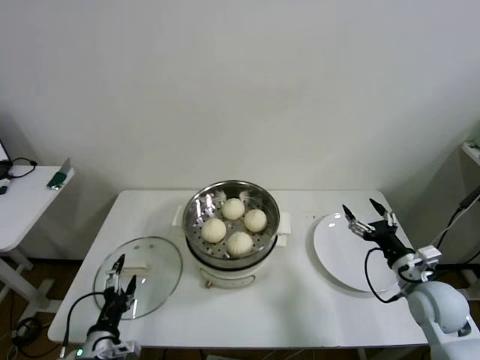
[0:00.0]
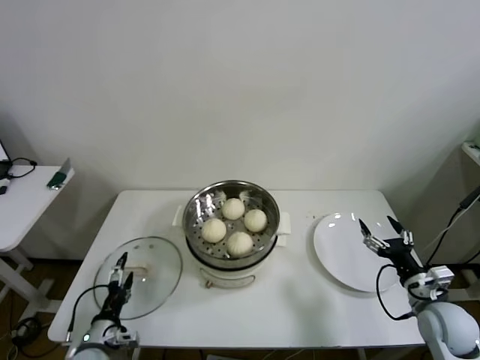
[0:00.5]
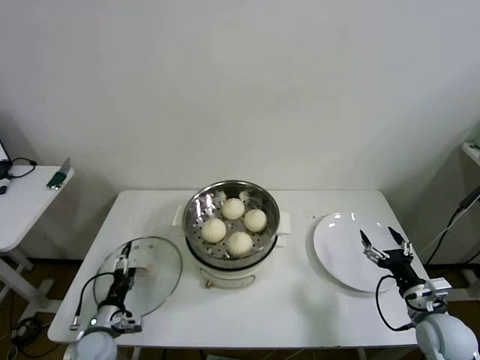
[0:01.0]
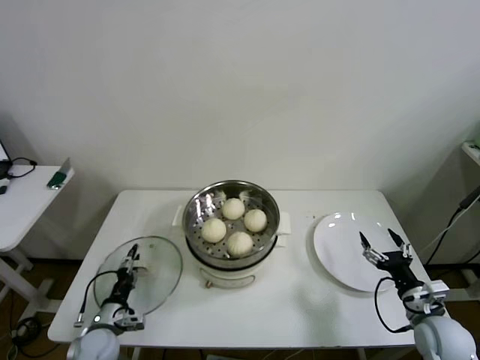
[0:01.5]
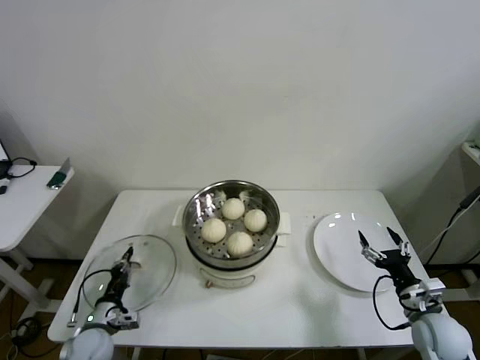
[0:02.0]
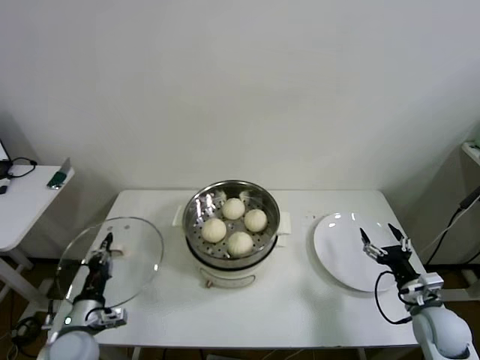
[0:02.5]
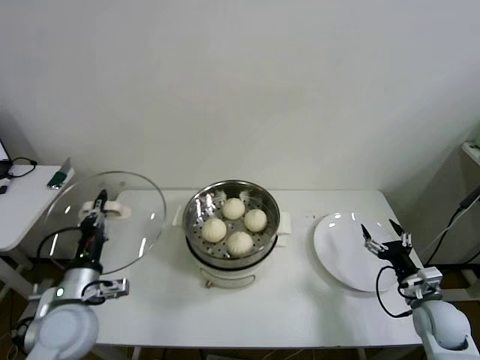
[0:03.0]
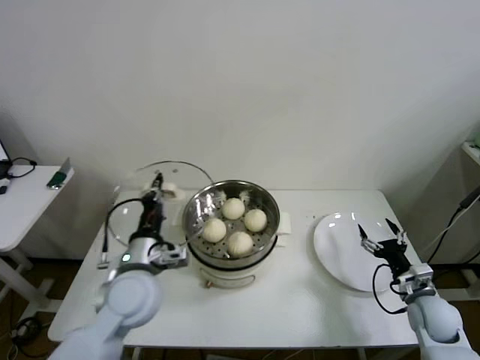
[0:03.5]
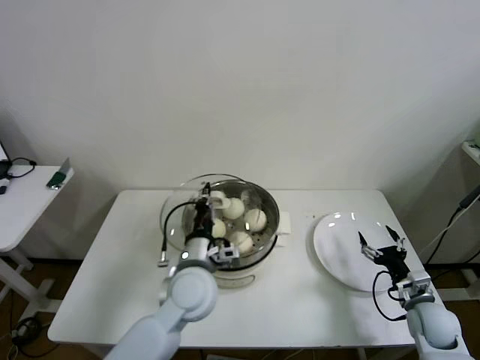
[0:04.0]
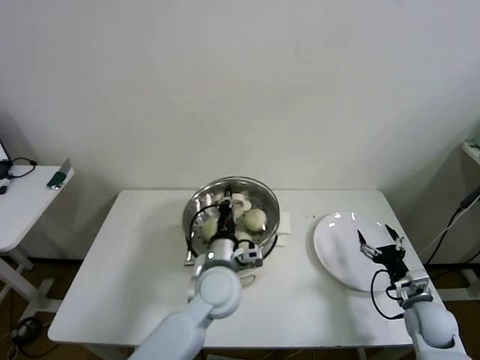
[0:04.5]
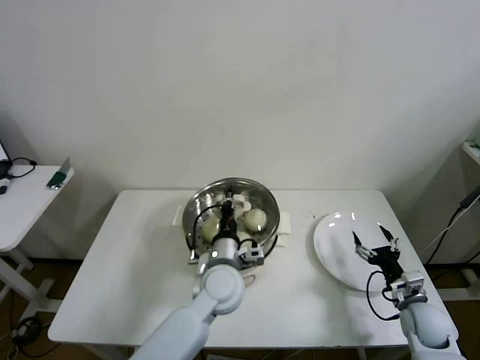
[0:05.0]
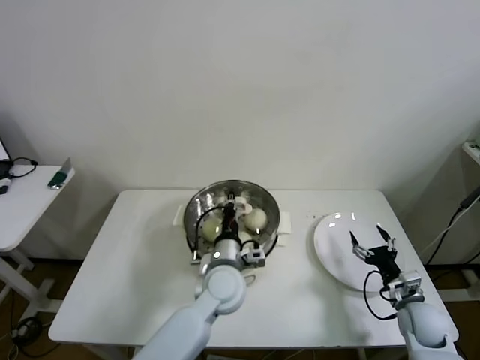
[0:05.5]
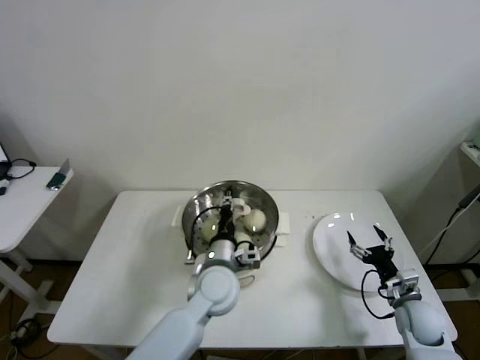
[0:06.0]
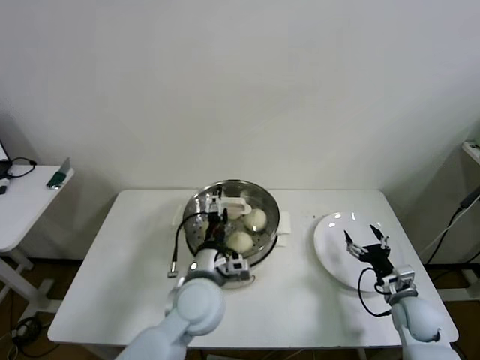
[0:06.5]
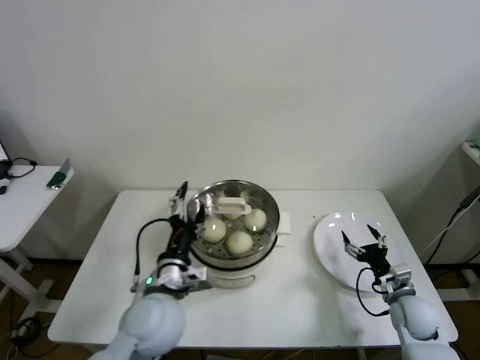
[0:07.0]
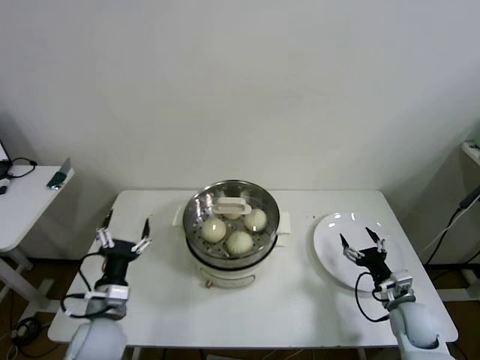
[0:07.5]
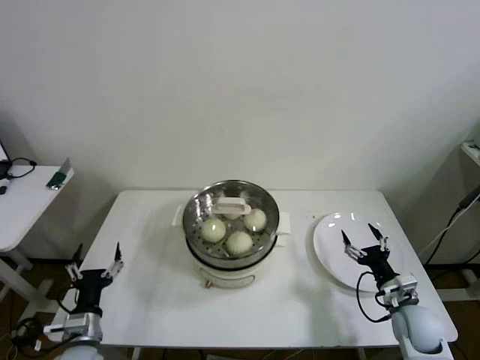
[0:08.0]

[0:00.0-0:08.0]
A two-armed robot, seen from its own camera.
Step, 0:02.0 to 0:05.5: Place the pot lid on the steamer with left gripper.
0:00.0 to 0:02.0: The left gripper shifts roughly 10 cm forward and downward, and closes up. The right gripper heads downward, covering about 5 cm.
0:02.0 to 0:04.0: The left gripper is displaced to the right and upward by some 30 cm, while the right gripper changes place by about 5 cm.
0:04.0 to 0:06.0: The left gripper moves to the right and downward, approximately 10 cm.
0:06.0 to 0:08.0: The left gripper goes some 30 cm to the left and backward, and opens.

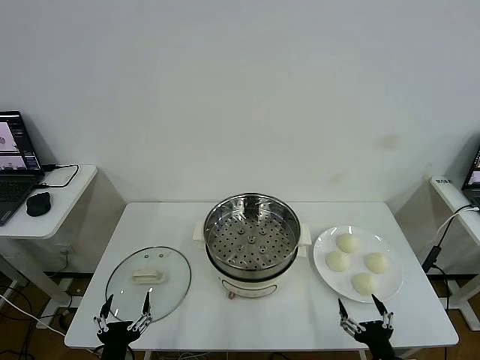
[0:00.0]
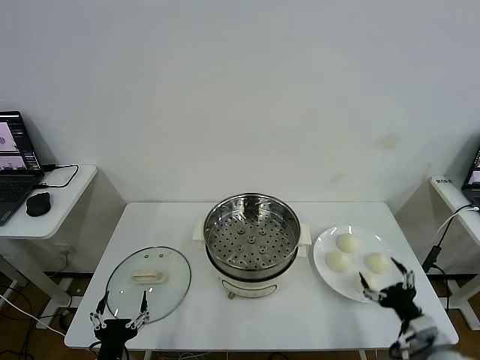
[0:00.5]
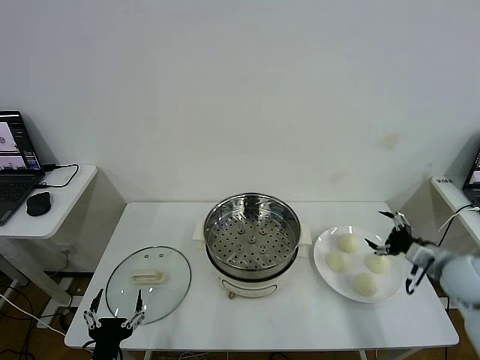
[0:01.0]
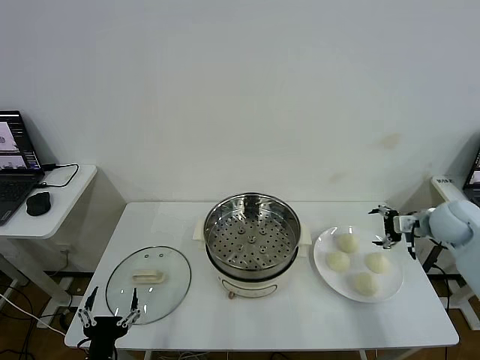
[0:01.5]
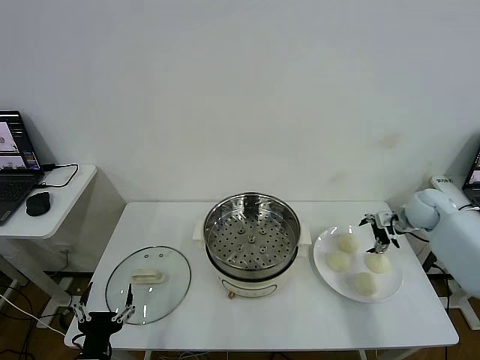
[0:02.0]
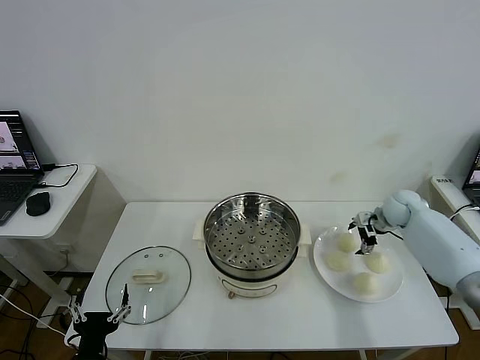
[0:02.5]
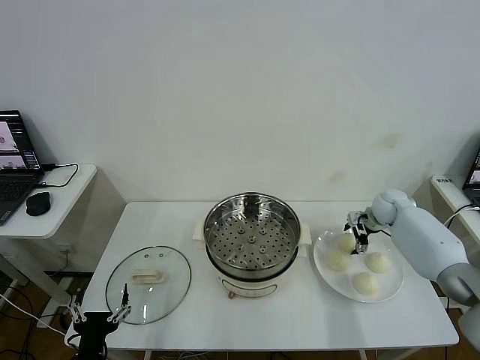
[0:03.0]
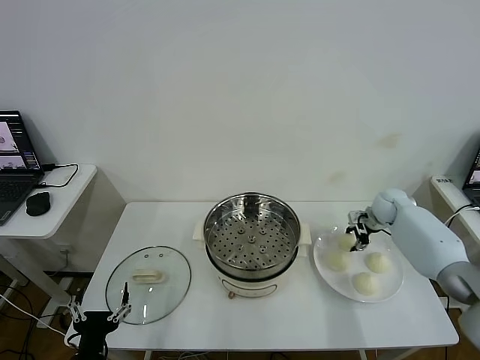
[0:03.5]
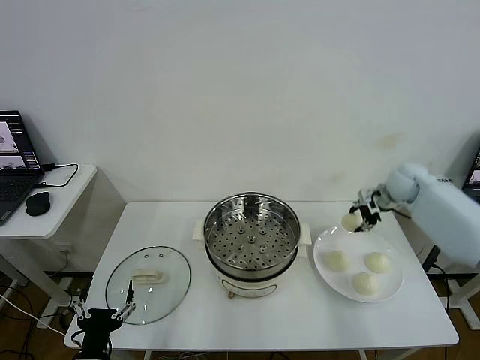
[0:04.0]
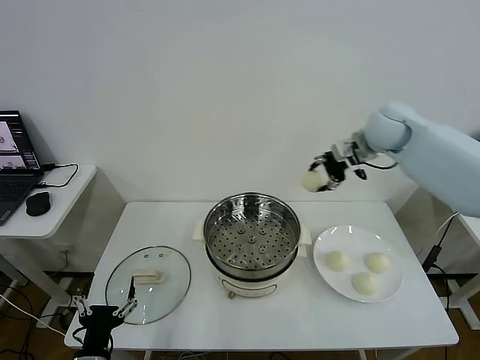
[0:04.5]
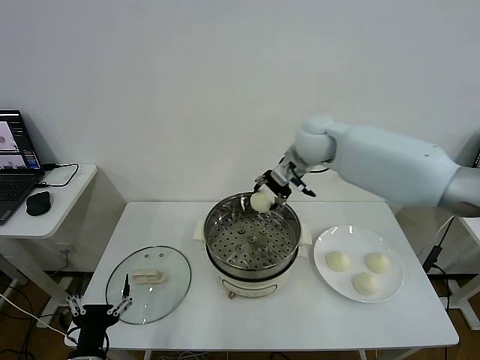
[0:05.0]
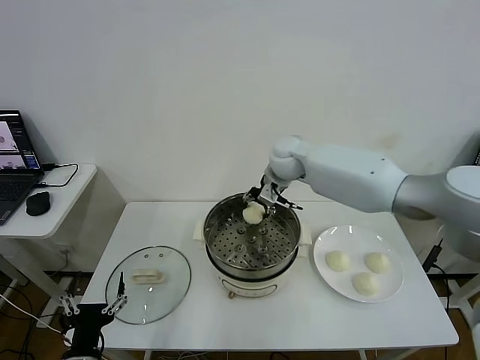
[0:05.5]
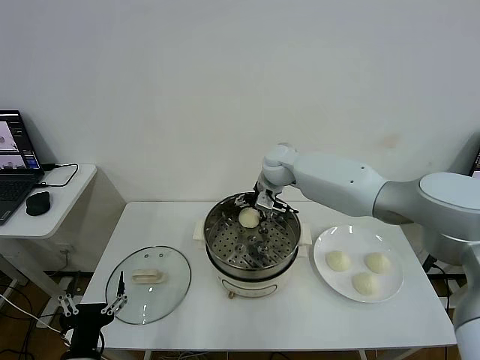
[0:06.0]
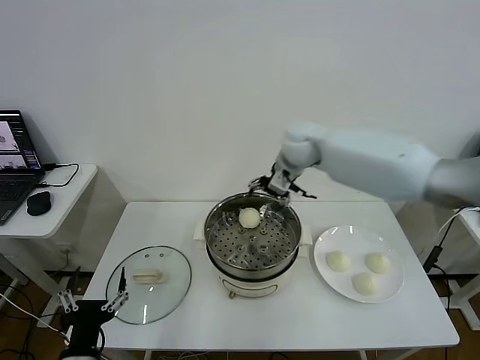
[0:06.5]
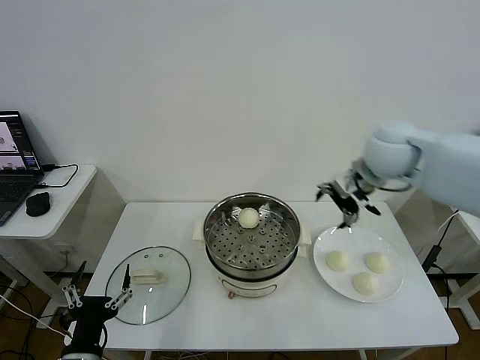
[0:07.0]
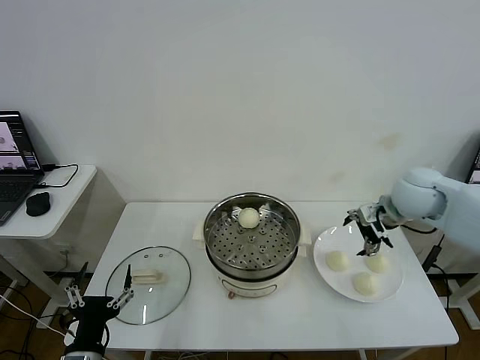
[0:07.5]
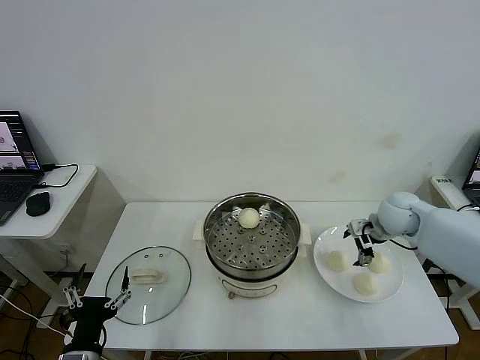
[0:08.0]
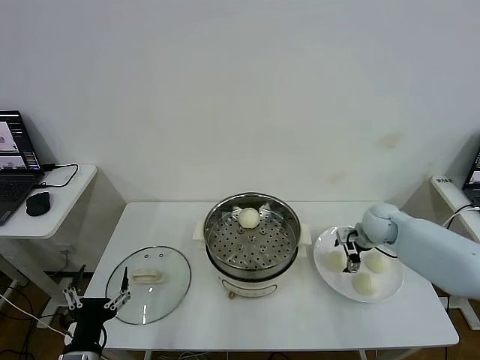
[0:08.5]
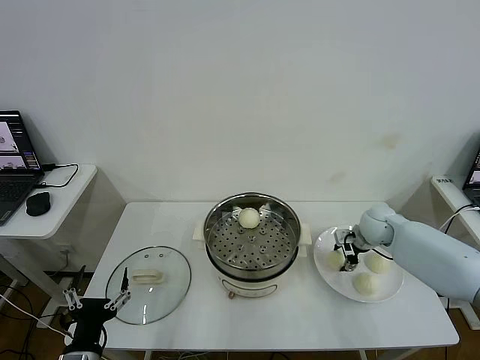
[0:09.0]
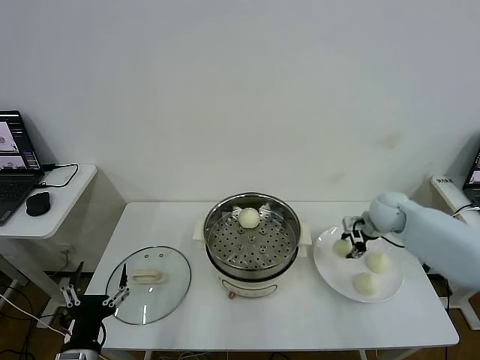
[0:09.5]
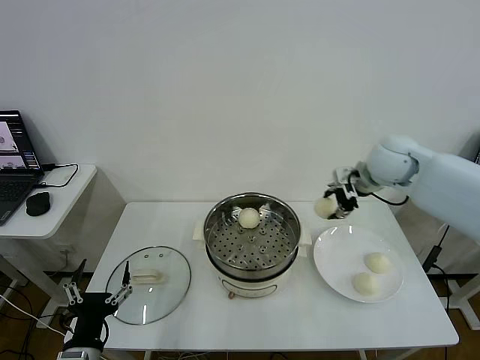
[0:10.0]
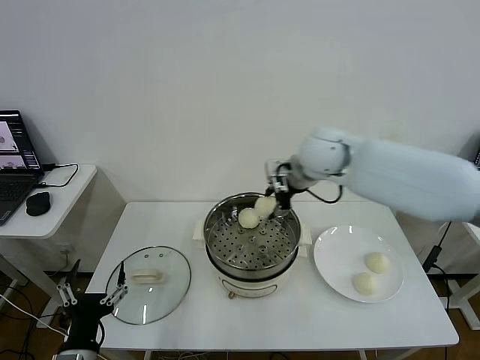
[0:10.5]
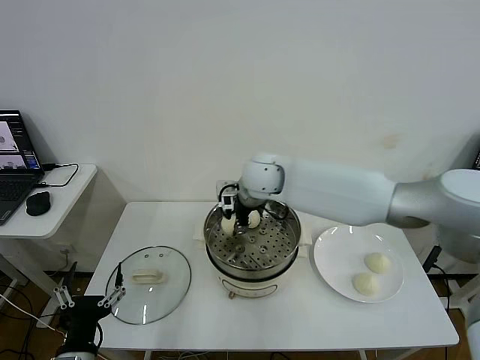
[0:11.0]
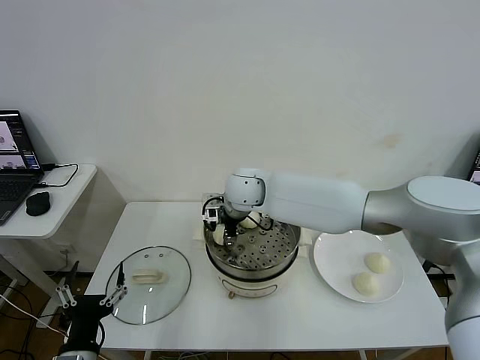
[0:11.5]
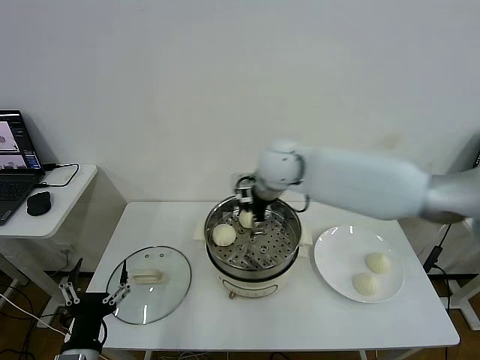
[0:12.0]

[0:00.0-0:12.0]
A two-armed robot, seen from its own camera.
Step, 0:00.0 to 0:03.0: Grasp the baozi in the plate with right gripper.
Step, 0:03.5 to 0:06.0: Place the baozi on the steamer with right gripper.
Step, 0:06.5 to 0:08.5: Grasp the baozi in the plate with right gripper.
Step, 0:09.0 to 0:11.5: Place the baozi on the steamer with right gripper.
0:02.0 to 0:04.0: The right gripper shifts some 15 cm upward and to the left, and closes up.
0:04.0 to 0:06.0: The right gripper goes approximately 30 cm to the left, and opens.
0:06.0 to 0:08.0: The right gripper goes about 25 cm to the right.
0:08.0 to 0:10.0: The right gripper travels upward and to the left by approximately 20 cm, and closes up.
0:10.0 to 0:12.0: The right gripper moves to the left, approximately 15 cm, and opens its fingers.

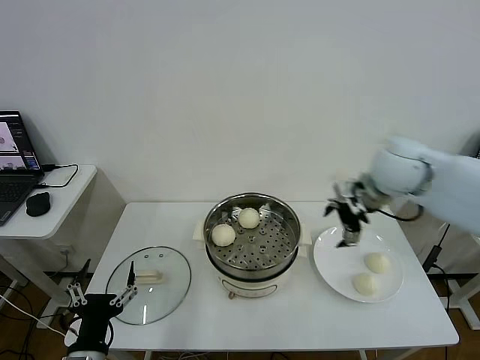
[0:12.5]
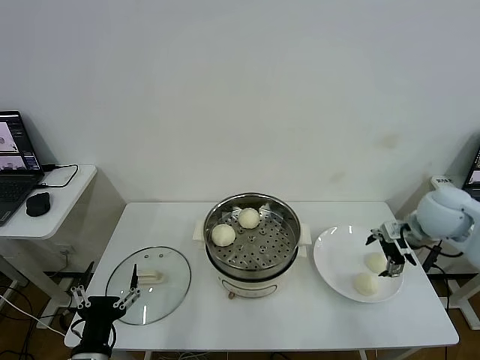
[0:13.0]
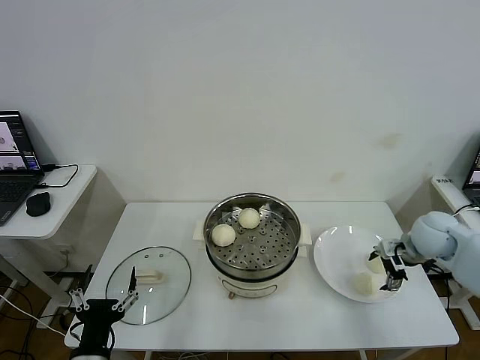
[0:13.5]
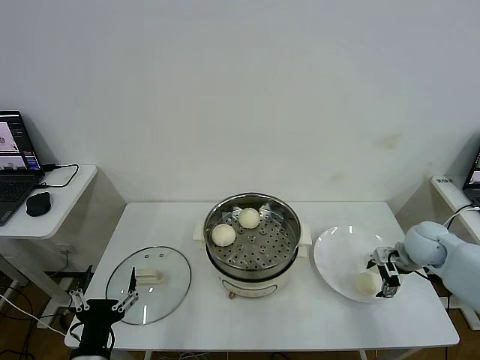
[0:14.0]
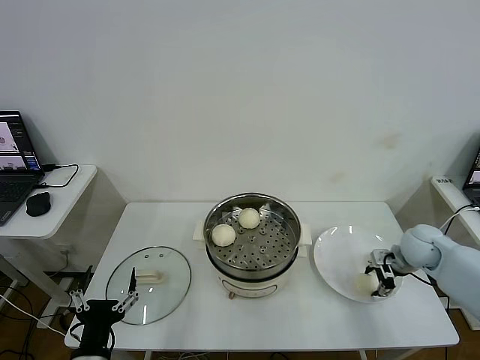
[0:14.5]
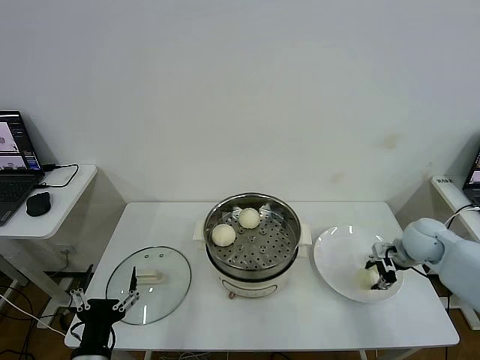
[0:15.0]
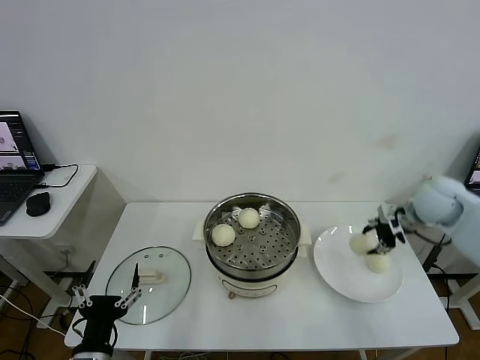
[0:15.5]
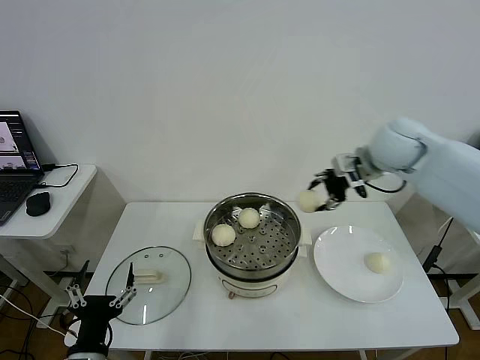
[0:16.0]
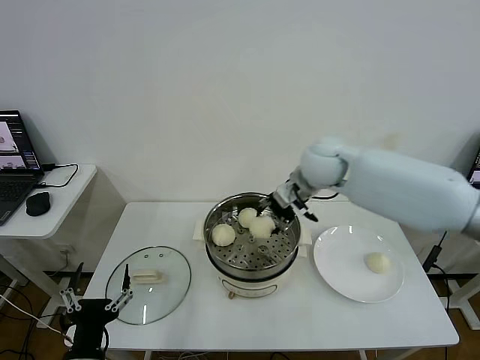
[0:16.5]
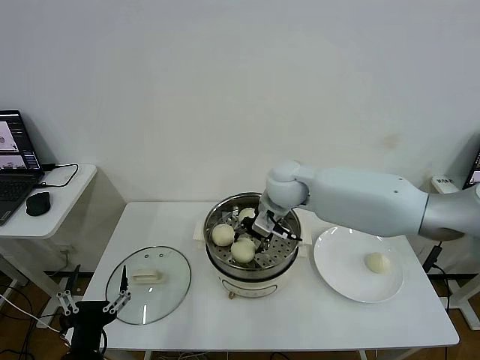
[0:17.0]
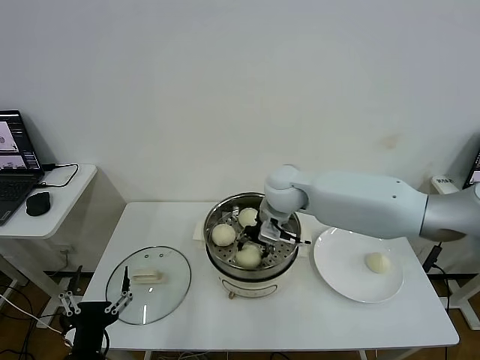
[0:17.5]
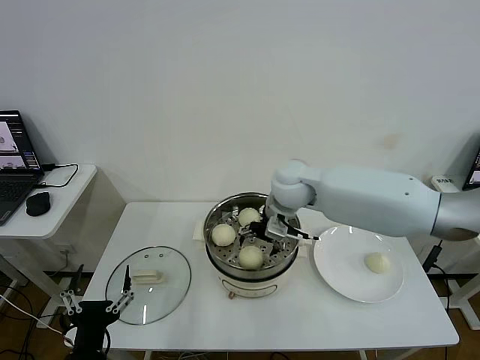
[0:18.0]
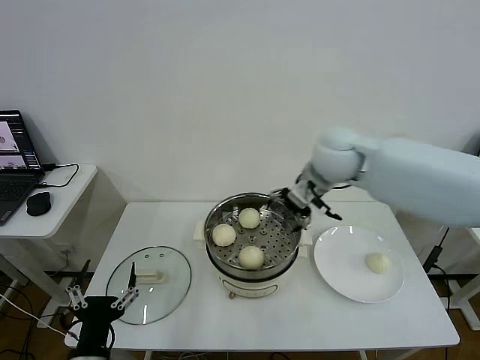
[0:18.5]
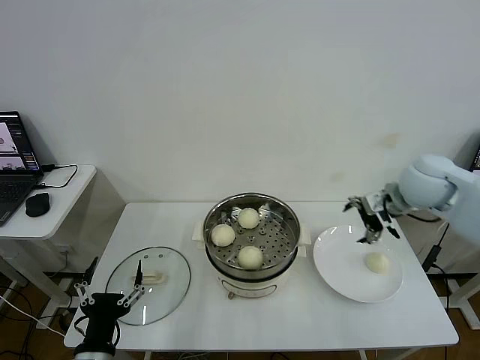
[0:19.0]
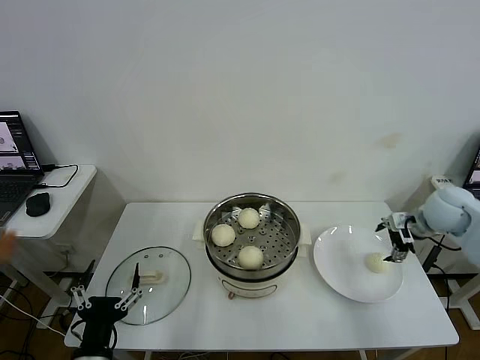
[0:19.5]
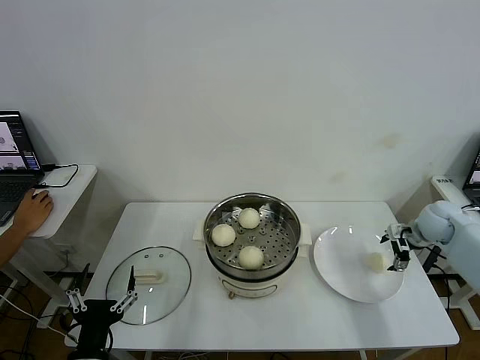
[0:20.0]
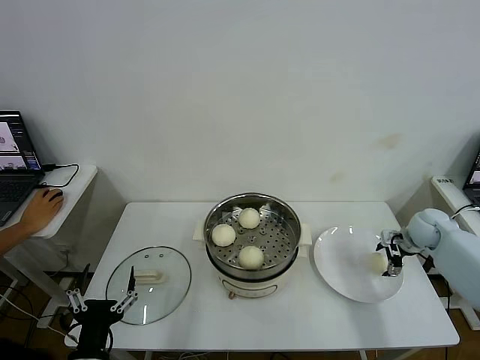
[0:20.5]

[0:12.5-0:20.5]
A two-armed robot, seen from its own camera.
Step, 0:12.5 to 0:14.5: Grasp the baozi in the plate with right gripper.
Step, 0:15.0 to 0:17.5: Place the baozi on the steamer with right gripper.
0:12.5 to 0:14.5: The right gripper goes about 25 cm downward and to the right, and closes.
0:14.5 to 0:16.5: The right gripper travels to the left and upward by about 30 cm.
0:16.5 to 0:18.5: The right gripper ends up roughly 5 cm from where it was, and opens its fingers.
0:18.5 to 0:20.5: The right gripper shifts approximately 35 cm to the right and downward.
